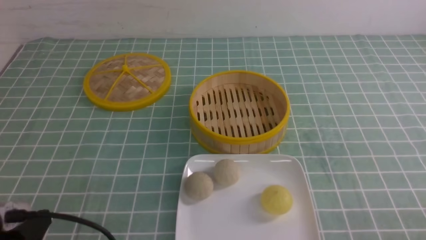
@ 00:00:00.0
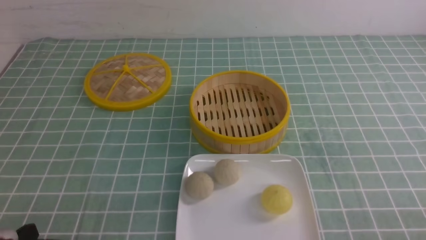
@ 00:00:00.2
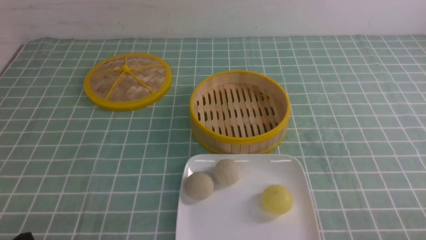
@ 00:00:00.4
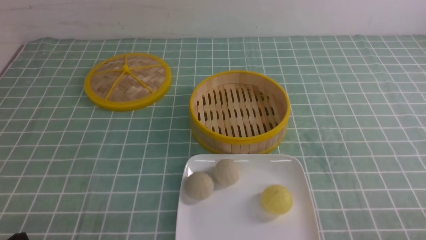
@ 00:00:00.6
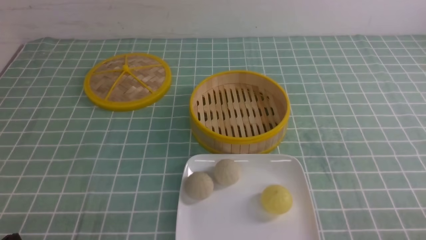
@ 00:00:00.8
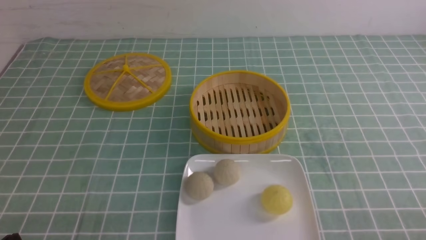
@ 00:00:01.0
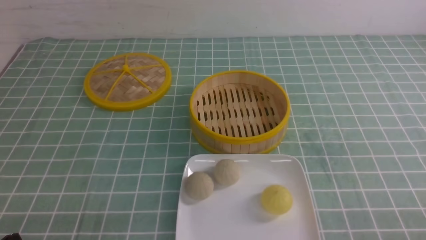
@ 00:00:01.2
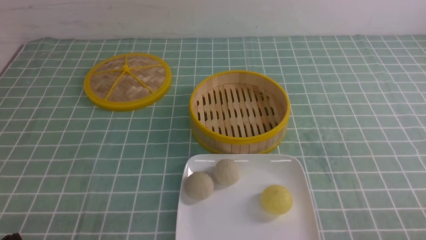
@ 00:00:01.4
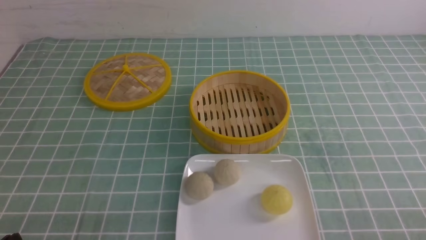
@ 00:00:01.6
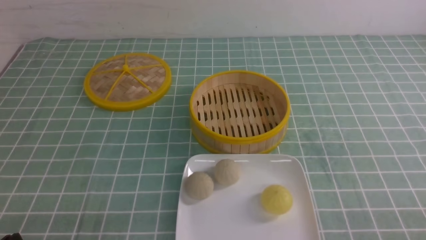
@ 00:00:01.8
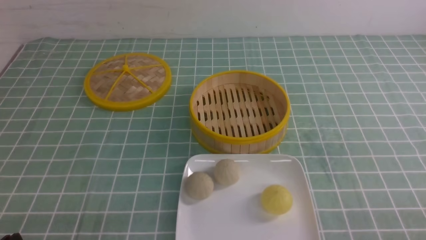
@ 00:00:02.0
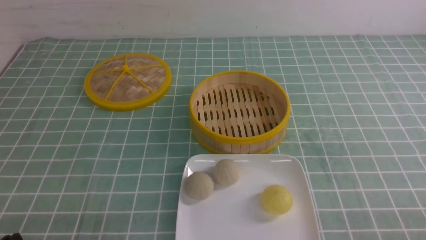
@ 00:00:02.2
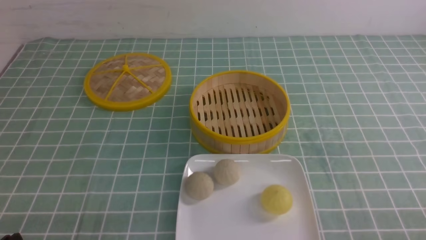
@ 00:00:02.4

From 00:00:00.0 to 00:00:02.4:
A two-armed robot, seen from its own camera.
From 00:00:00.0 to 00:00:01.2: The grippers make only small movements.
From 00:00:01.2 to 00:00:02.4: Both grippers stay put.

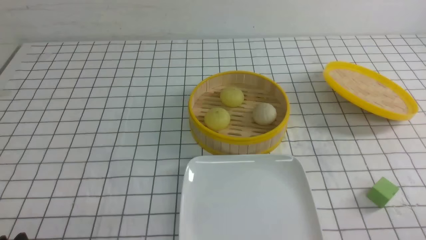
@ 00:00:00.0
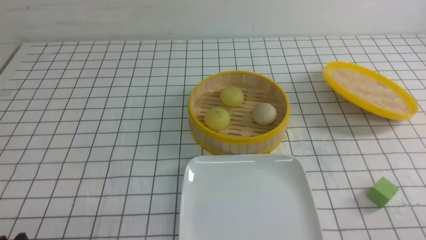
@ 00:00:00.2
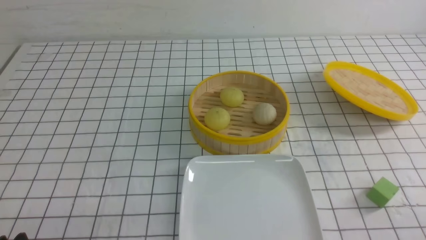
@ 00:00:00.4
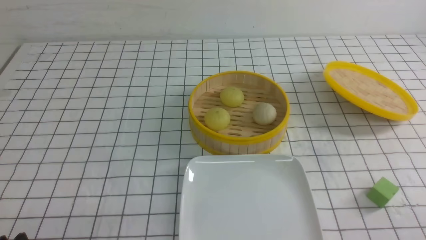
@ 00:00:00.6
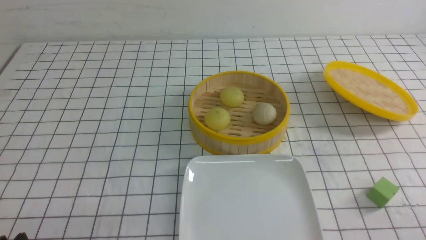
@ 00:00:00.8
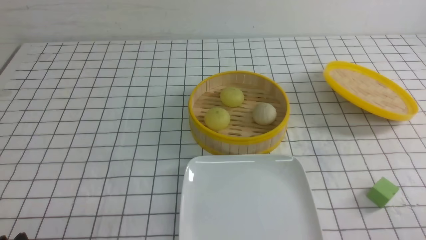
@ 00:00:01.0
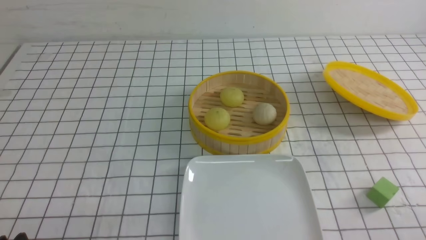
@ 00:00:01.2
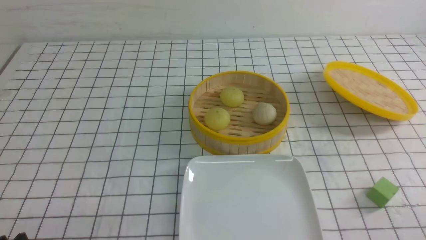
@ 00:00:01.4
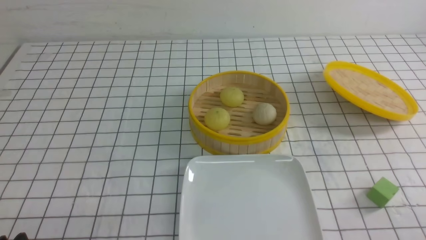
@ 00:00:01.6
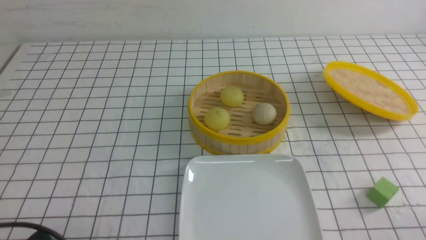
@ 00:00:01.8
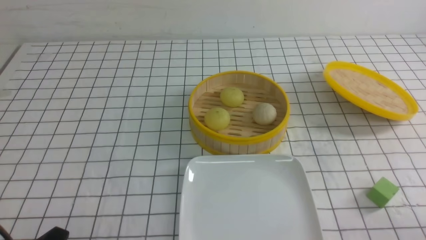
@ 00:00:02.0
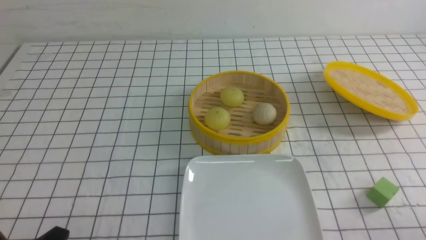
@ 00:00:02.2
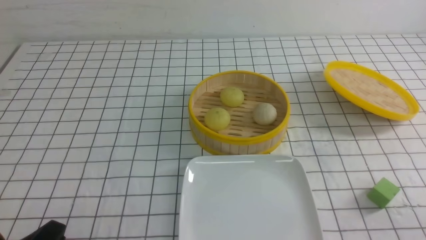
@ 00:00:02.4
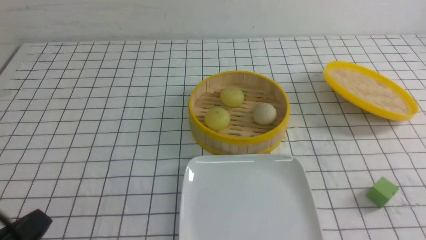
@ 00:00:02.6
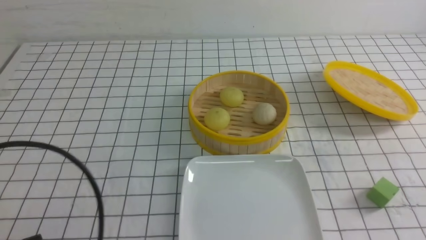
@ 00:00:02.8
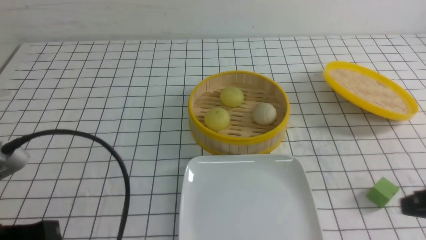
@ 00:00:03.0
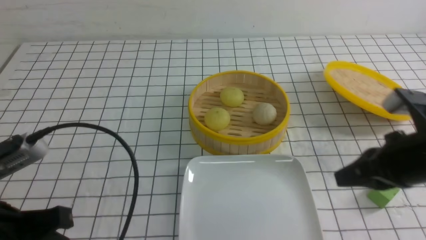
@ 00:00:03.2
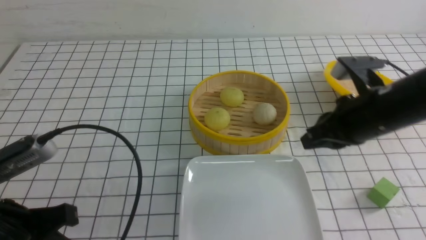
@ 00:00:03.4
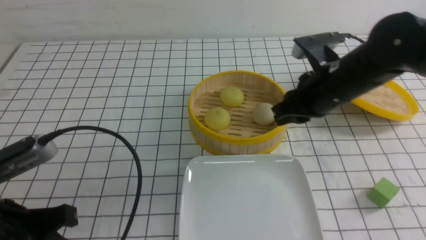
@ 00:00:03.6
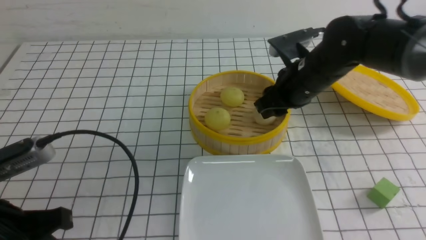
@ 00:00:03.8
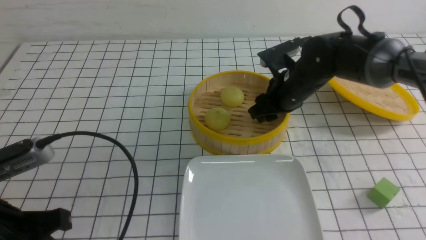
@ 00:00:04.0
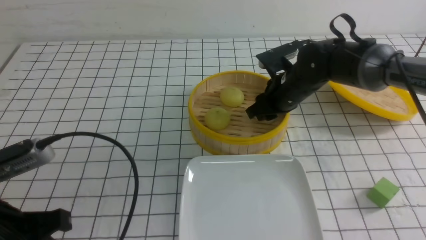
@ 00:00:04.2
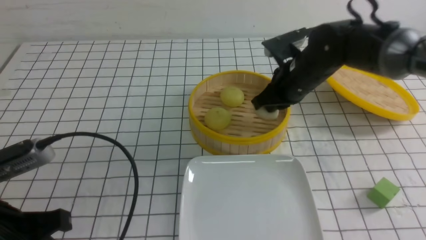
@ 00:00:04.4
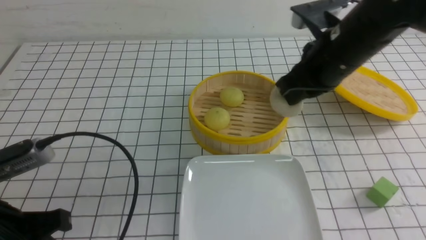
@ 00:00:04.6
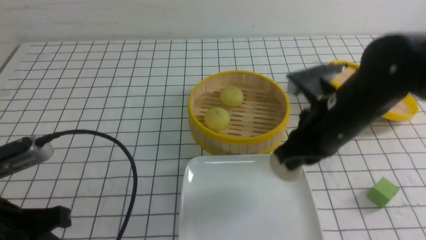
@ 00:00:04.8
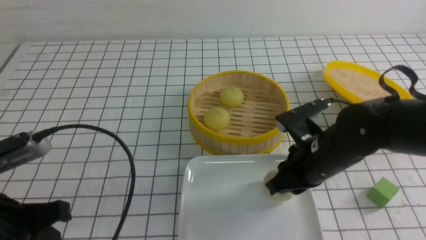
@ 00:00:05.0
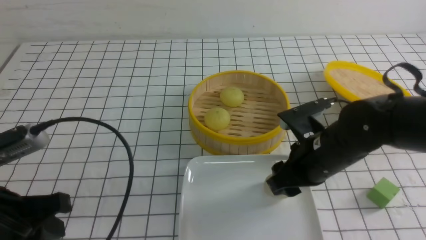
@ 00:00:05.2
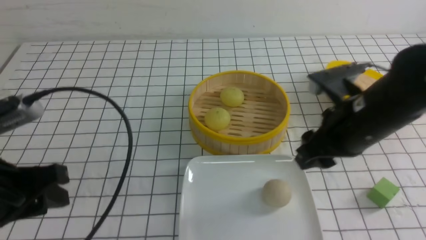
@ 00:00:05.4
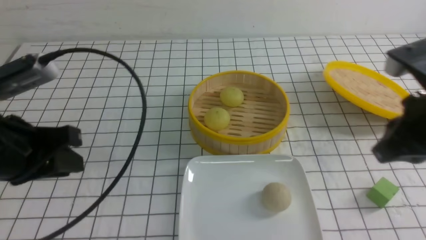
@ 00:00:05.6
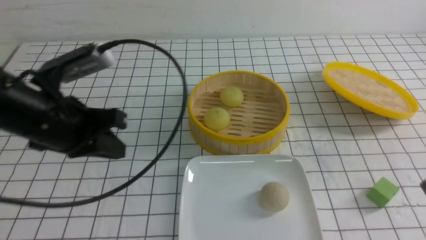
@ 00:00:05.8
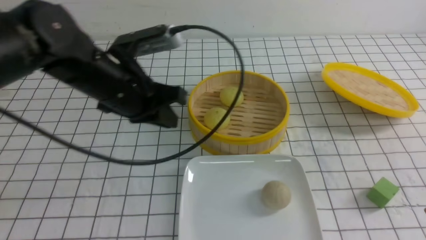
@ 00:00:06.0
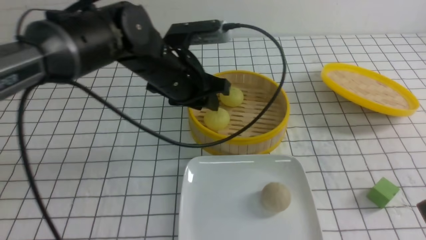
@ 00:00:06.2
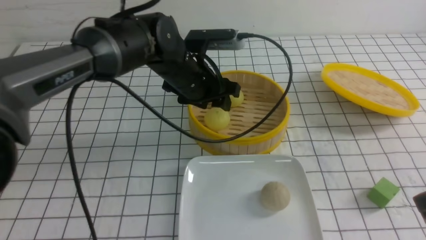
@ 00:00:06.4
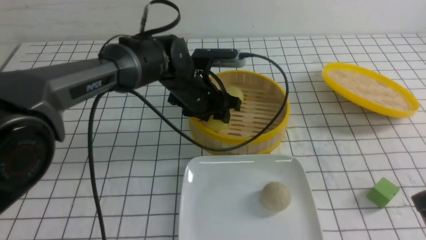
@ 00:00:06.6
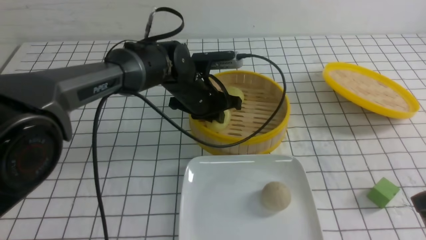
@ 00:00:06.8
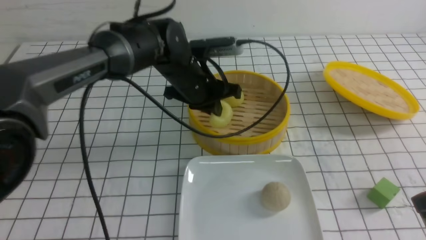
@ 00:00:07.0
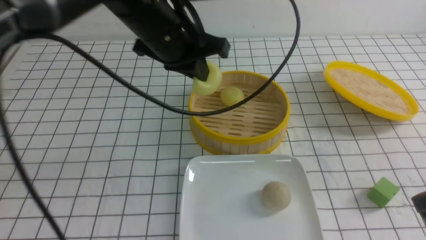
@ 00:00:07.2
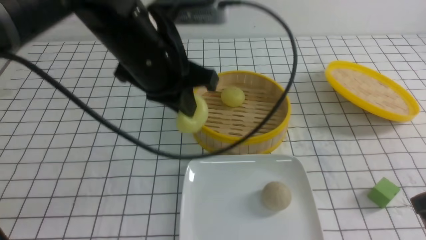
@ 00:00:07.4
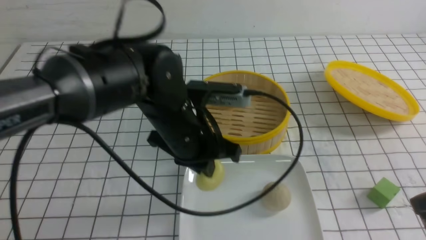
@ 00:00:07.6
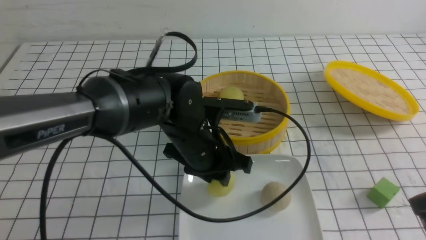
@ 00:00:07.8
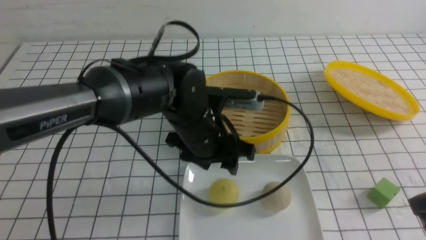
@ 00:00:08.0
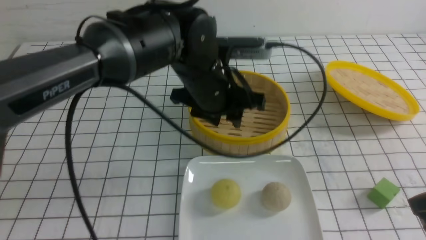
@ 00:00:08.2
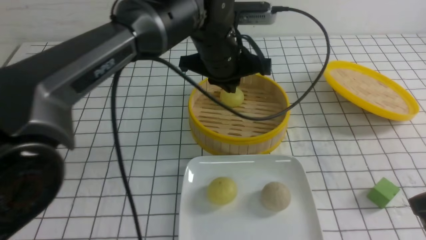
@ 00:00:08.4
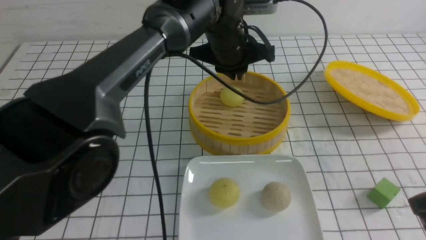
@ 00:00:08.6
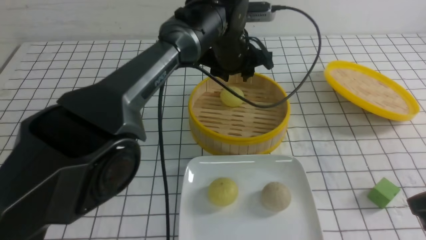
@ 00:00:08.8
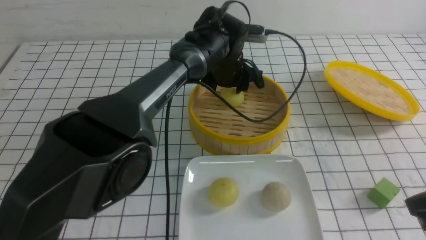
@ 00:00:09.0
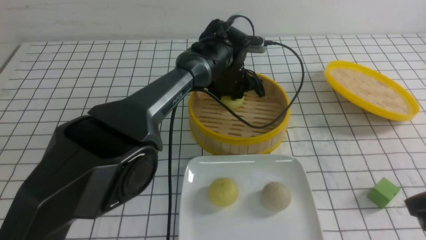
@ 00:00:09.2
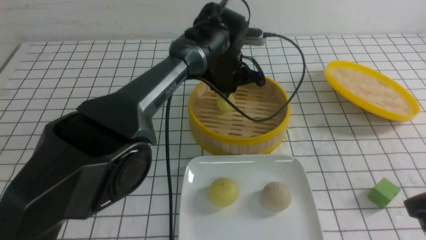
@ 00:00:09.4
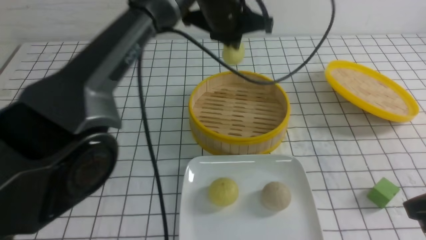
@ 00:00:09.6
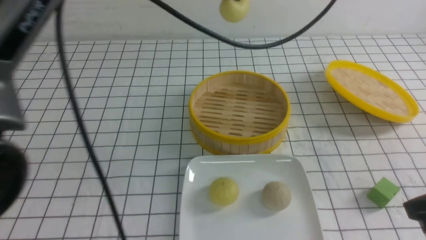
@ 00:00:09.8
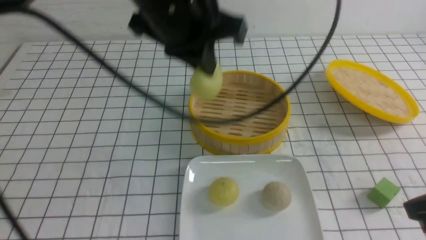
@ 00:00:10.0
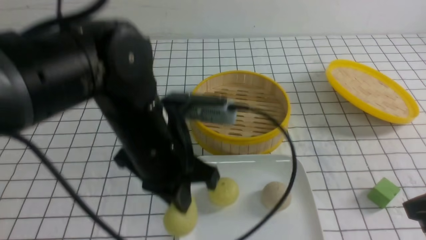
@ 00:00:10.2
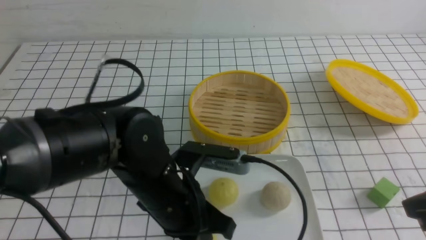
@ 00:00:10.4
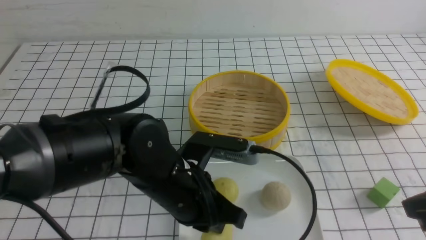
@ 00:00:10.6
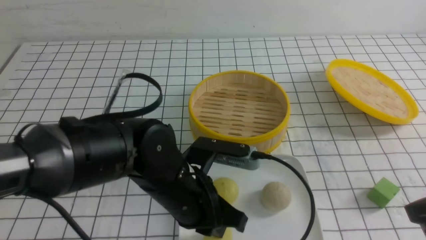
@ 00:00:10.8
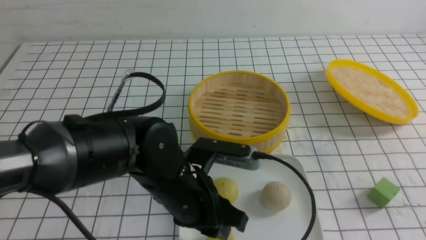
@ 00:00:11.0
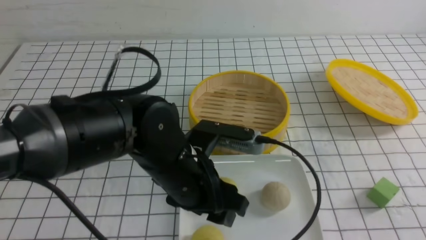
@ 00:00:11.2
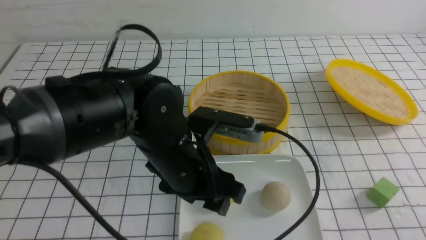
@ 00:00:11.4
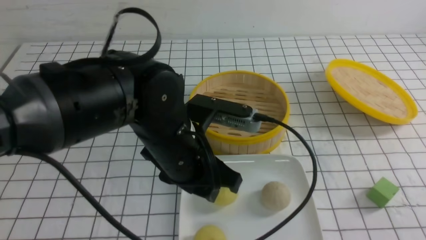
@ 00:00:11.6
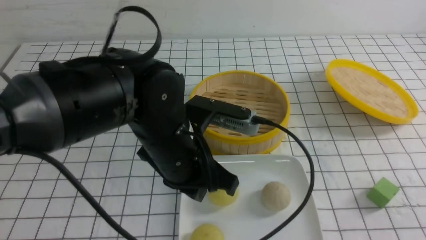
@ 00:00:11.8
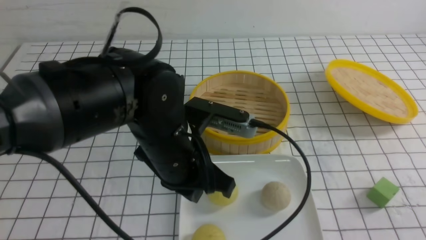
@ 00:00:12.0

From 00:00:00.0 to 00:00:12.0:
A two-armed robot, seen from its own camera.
Step, from 00:00:00.0 to 00:00:04.2: use the right arm to grab the steamed stuffed bun that is closest to it.
Step, from 00:00:04.6 to 00:00:05.2: use the right arm to put the steamed stuffed bun into the plate.
Step, from 00:00:05.4 to 00:00:07.0: use the left arm to grab the steamed stuffed bun that is closest to it.
Step, from 00:00:07.2 to 00:00:08.0: use the left arm to put the steamed stuffed bun into the plate.
Step, from 00:00:08.2 to 00:00:09.4: use the left arm to grab the steamed stuffed bun that is closest to it.
Step, from 00:00:09.6 to 00:00:11.4: use the left arm to put the steamed stuffed bun into the plate.
From 00:00:01.6 to 00:00:03.0: The right gripper heads forward and upward, covering roughly 15 cm, and closes up; the left gripper travels upward by some 10 cm, and closes.
From 00:00:03.0 to 00:00:04.4: The right gripper goes approximately 25 cm forward and to the left, and opens, then closes again.
From 00:00:04.4 to 00:00:06.0: The left gripper goes roughly 20 cm forward and to the right, while the right gripper moves backward and to the right, some 25 cm, and opens and closes again.
From 00:00:06.0 to 00:00:07.6: The left gripper shifts roughly 10 cm to the right, goes forward and returns, some 10 cm each way, and opens, then closes again.
From 00:00:07.6 to 00:00:09.0: The left gripper heads forward and to the right, covering some 20 cm, and opens.
From 00:00:09.0 to 00:00:10.4: The left gripper heads backward, covering about 25 cm, and closes.
From 00:00:10.4 to 00:00:12.0: The left gripper opens, then closes once more, while the right gripper goes some 10 cm backward.

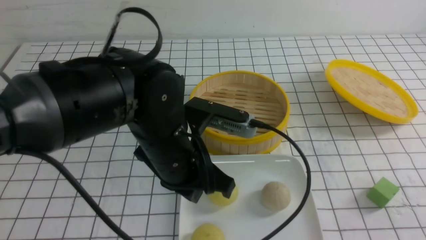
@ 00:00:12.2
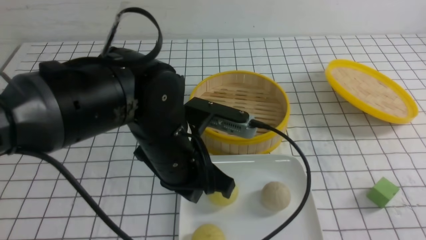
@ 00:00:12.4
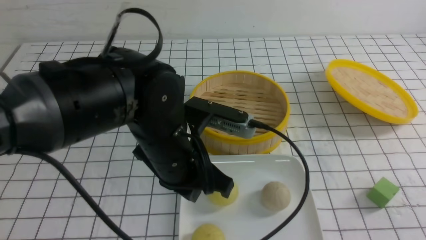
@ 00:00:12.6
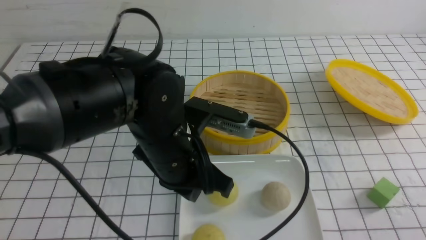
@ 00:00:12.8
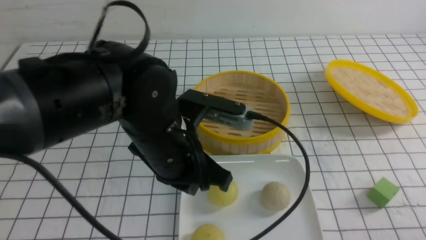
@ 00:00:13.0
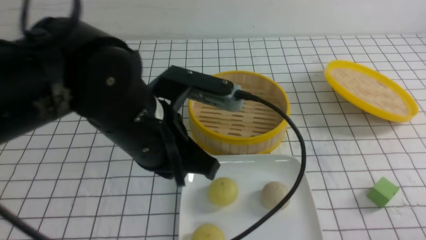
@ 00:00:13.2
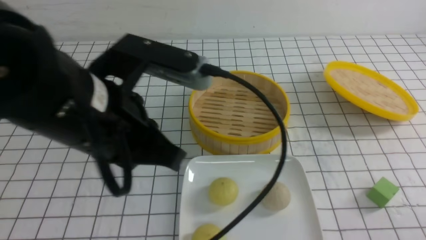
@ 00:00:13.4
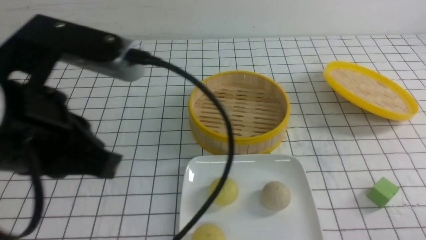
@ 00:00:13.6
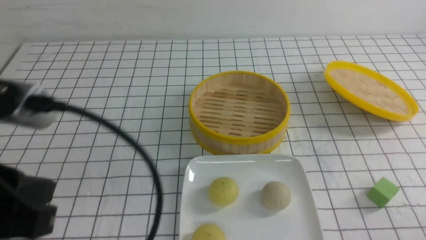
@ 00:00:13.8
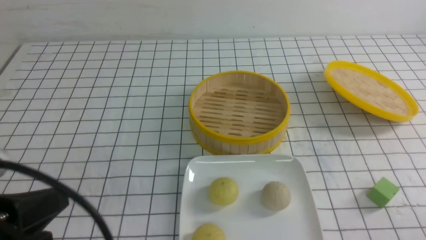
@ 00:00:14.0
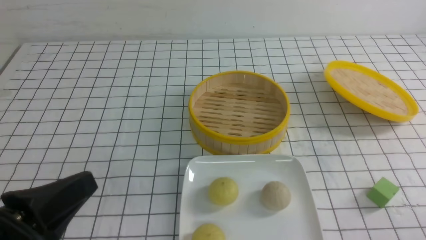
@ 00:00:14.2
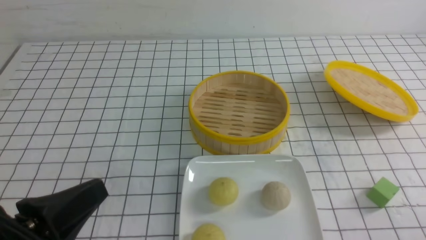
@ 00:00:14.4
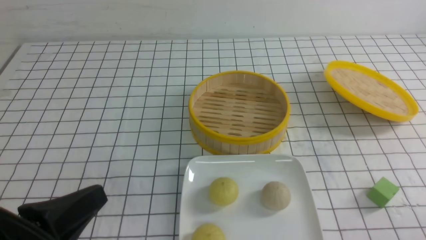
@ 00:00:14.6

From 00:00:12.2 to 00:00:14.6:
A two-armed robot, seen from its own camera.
From 00:00:12.2 to 00:00:13.4: The left gripper heads upward, to the left and backward, covering roughly 15 cm. The right gripper shifts some 10 cm downward.
From 00:00:13.4 to 00:00:14.6: The left gripper moves backward, downward and to the left, some 15 cm.
